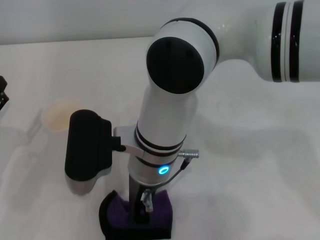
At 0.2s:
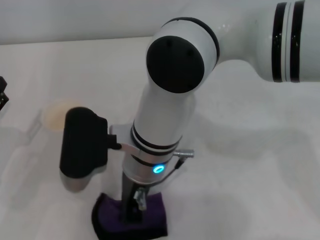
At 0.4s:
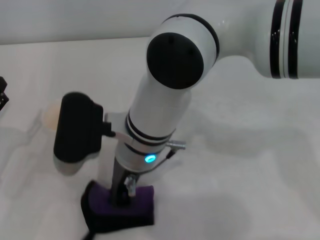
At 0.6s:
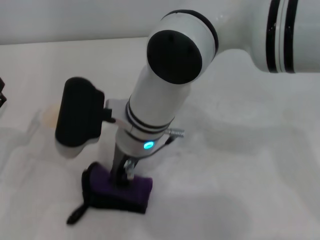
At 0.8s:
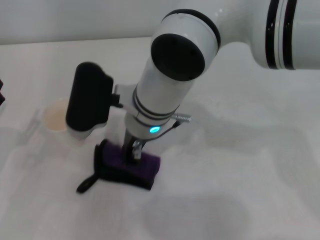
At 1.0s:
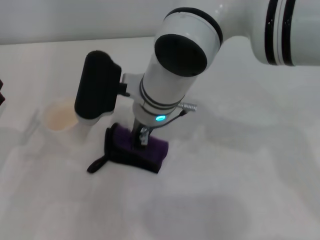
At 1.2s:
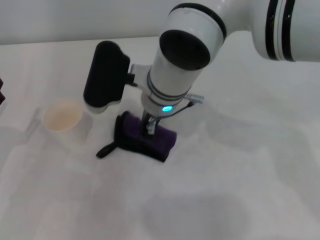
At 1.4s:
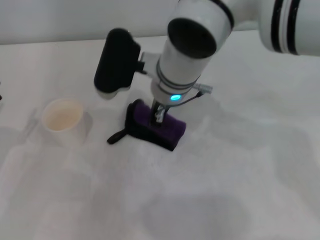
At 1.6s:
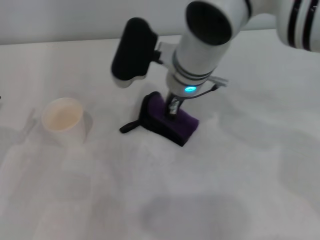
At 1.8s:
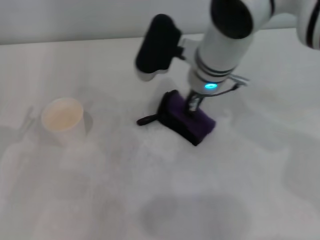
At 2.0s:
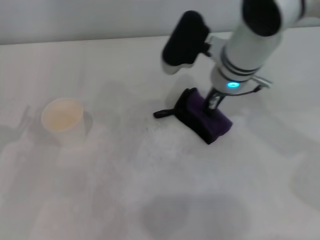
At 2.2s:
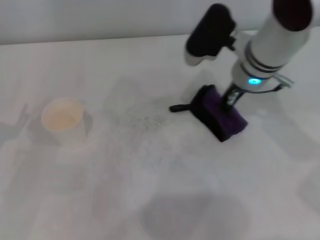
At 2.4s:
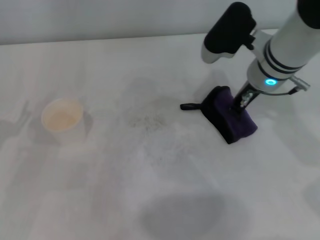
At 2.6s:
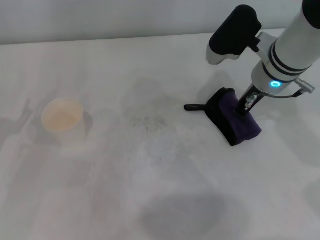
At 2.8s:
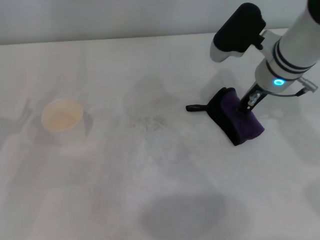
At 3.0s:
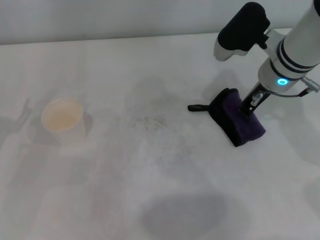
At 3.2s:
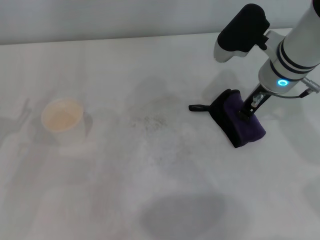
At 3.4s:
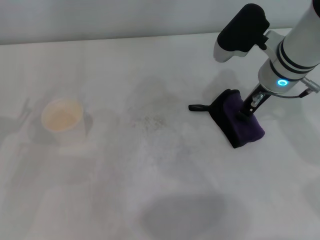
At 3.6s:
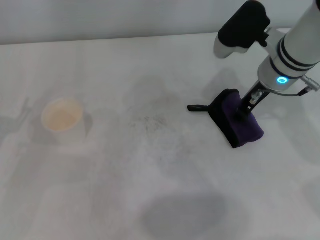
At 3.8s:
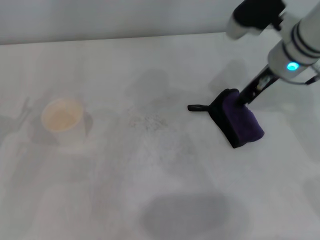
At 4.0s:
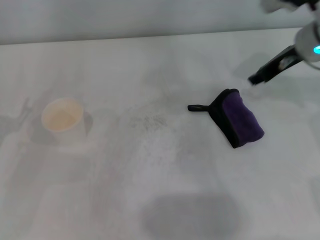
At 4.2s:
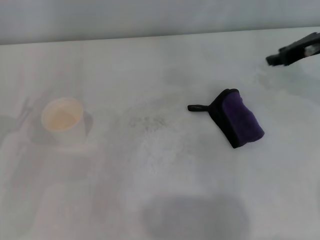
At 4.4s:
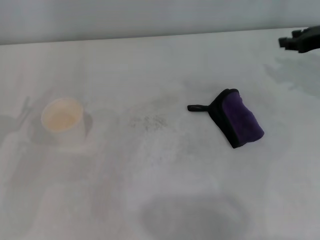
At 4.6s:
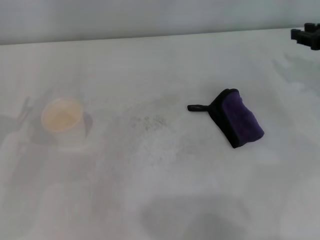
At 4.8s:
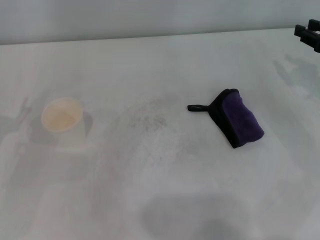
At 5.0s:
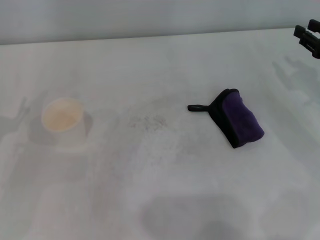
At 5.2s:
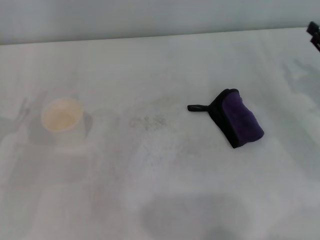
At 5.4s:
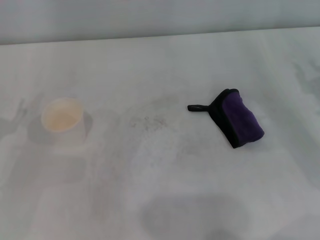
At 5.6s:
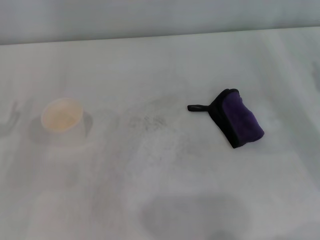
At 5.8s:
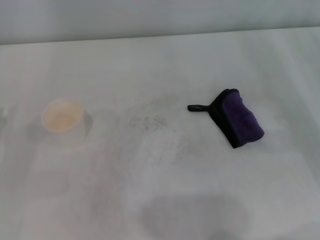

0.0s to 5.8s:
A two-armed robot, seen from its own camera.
Step, 0.0s to 2.8s: Wipe the stains off the table with the right gripper.
Step, 3.0s to 3.6s: Place the rag on the table with the right gripper.
0.0s to 1.4s: The right gripper shifts roughly 10 cm forward.
1.4s to 2.8s: The right gripper moves to the right, approximately 15 cm.
2.8s to 4.4s: The right gripper moves to the right, approximately 15 cm.
4.4s to 5.8s: The right gripper travels backward and downward by approximately 15 cm.

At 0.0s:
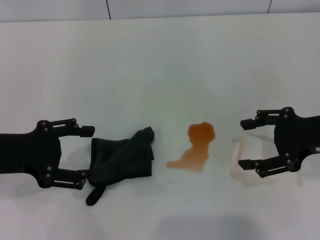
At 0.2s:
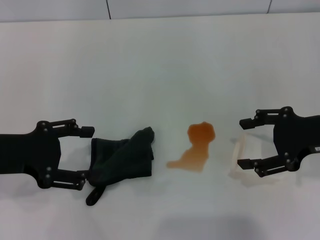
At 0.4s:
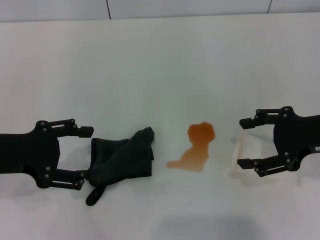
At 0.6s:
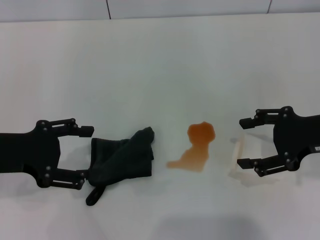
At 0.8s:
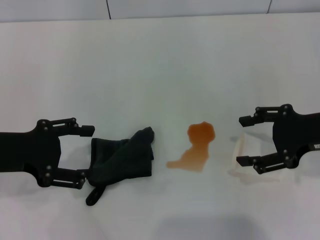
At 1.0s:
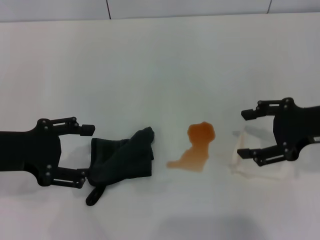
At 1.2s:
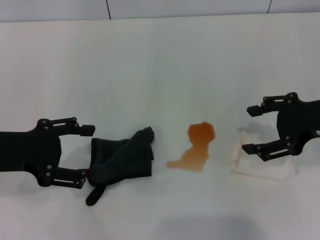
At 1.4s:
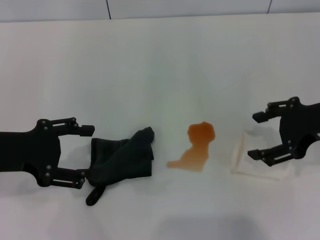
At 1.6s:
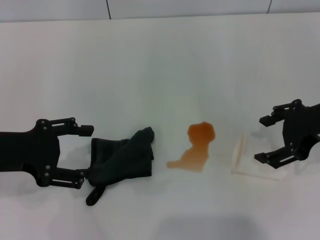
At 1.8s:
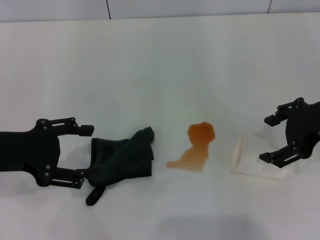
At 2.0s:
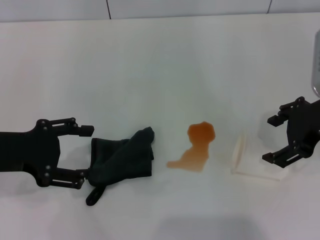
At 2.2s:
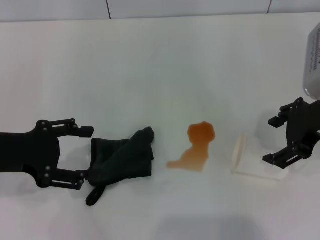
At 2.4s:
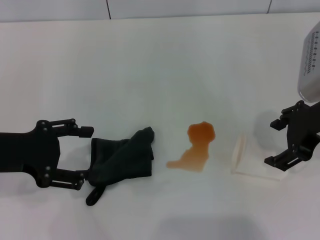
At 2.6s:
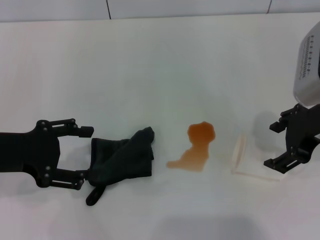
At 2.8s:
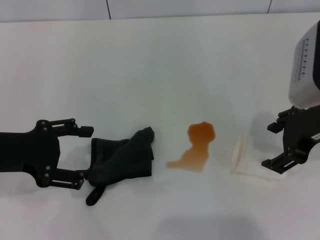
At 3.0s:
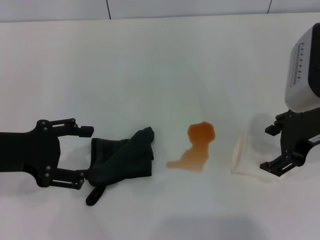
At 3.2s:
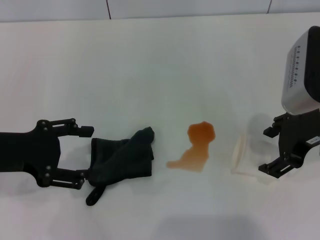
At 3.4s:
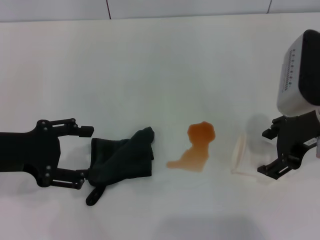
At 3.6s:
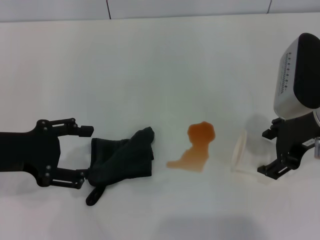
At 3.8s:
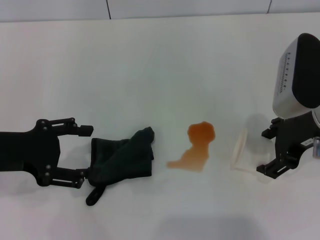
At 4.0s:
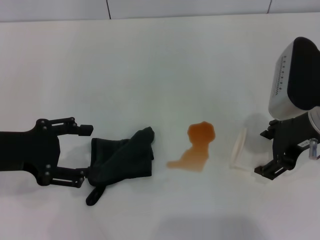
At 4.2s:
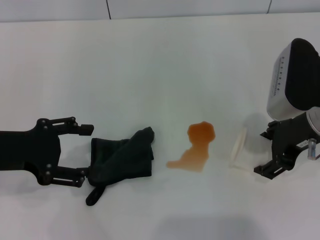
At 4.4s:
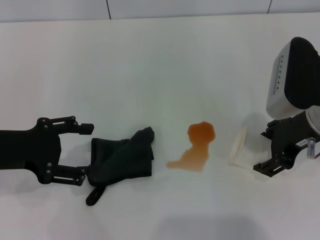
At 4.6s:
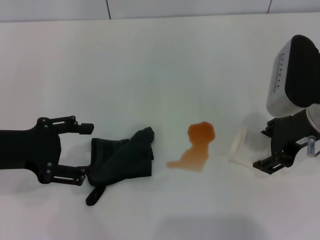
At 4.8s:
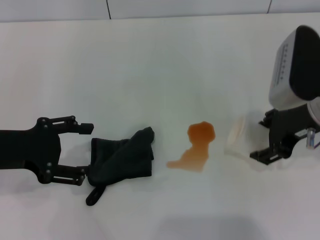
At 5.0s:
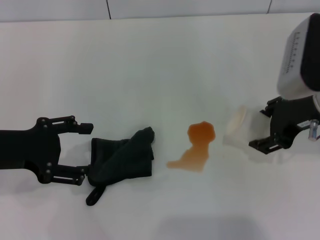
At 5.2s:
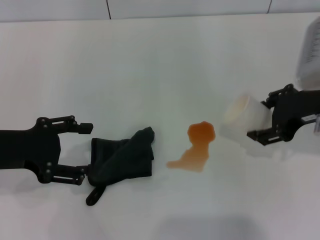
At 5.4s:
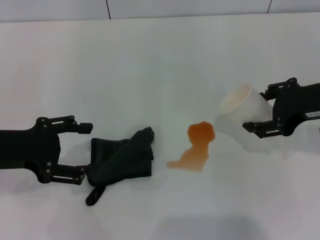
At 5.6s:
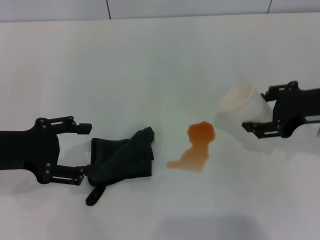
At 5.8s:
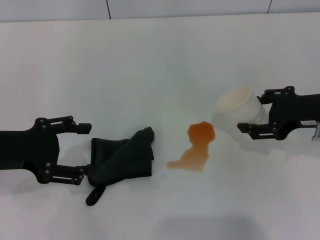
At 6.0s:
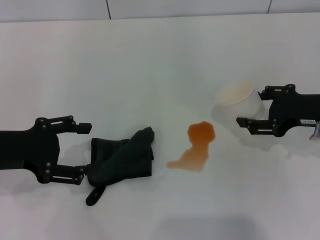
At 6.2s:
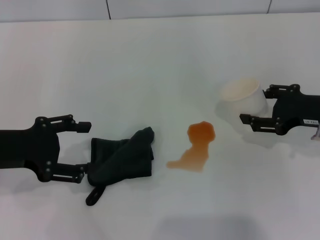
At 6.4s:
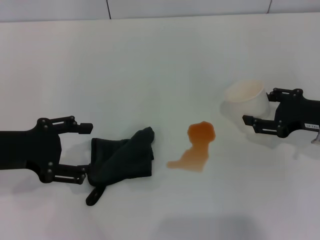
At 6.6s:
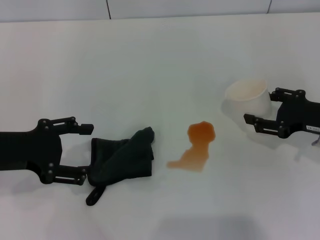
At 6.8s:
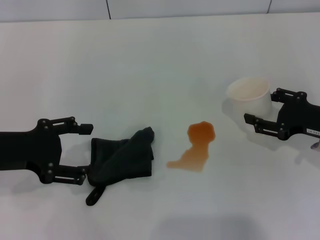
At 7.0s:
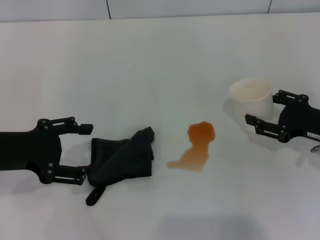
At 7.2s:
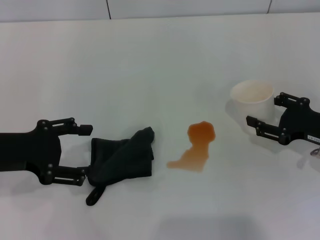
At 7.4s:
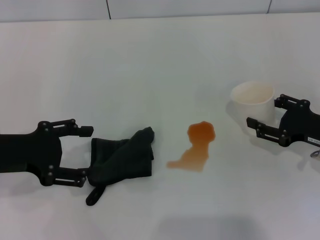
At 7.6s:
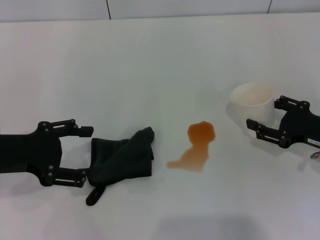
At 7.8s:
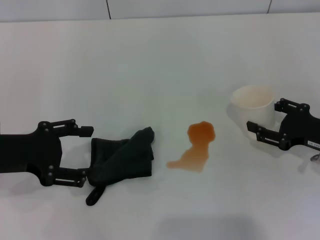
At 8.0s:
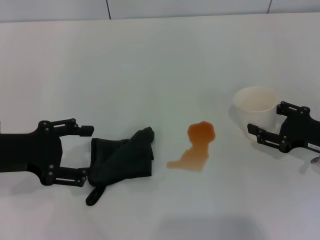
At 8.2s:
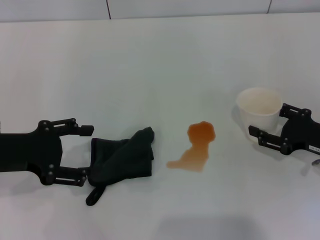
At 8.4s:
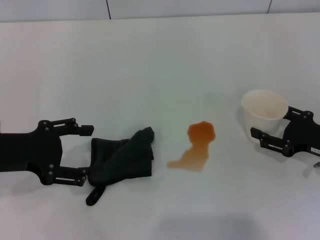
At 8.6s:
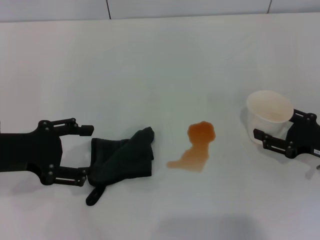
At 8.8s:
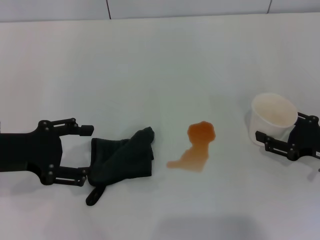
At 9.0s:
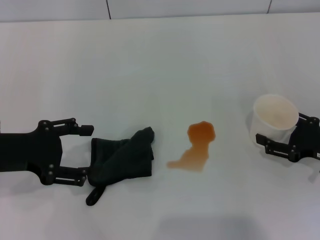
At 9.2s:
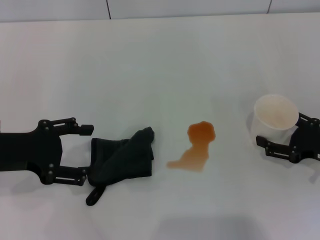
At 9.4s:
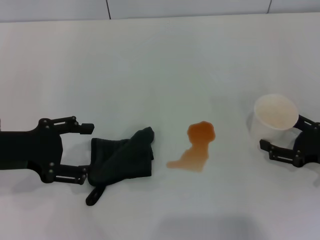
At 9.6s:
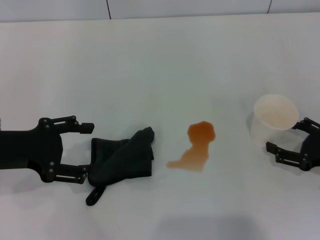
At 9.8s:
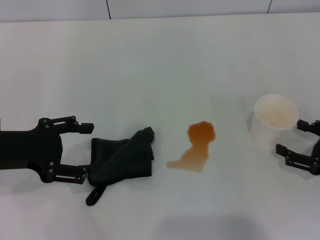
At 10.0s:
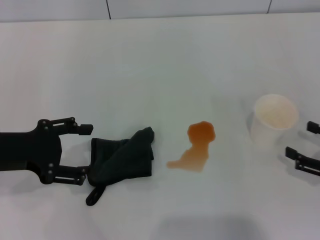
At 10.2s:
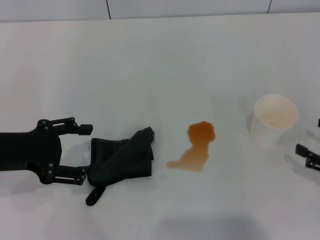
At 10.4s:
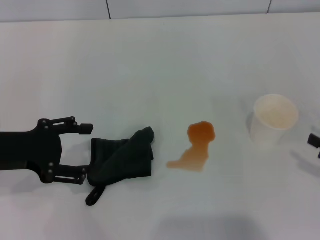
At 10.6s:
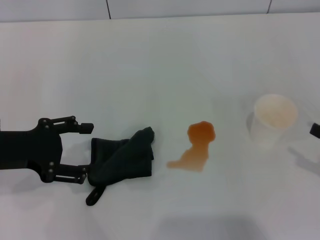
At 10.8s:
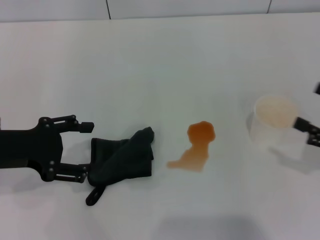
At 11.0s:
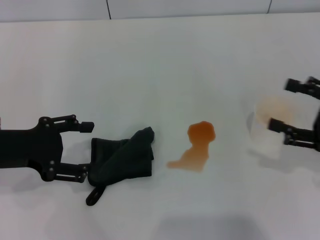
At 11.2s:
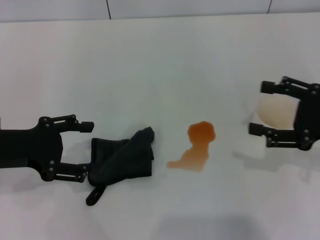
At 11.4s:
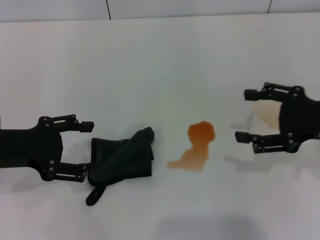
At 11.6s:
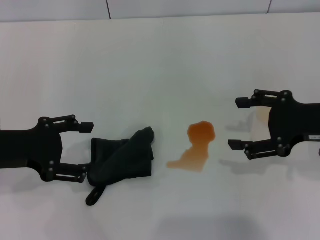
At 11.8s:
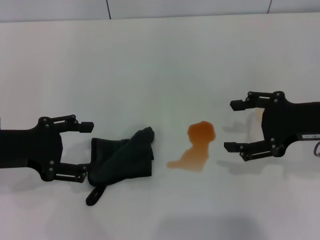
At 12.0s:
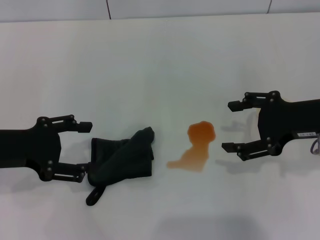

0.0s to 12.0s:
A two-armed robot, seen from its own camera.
Step, 0.0s to 4.4s: Grasp the paper cup with the right gripper.
Step, 4.8s to 9.6s: Stand the paper cup upright with the right gripper.
1.6s to 4.4s: There are only small adjustments of the grippers.
4.4s to 6.0s: The right gripper heads to the right, covering roughly 5 cm.
6.0s to 7.6s: The right gripper shifts roughly 5 cm downward.
7.6s to 9.0s: The grippers move only a little.
9.0s to 10.4s: The right gripper shifts roughly 10 cm backward and to the right, and opens its fingers.
10.4s to 12.0s: The right gripper heads to the left, upward and forward, covering roughly 20 cm.

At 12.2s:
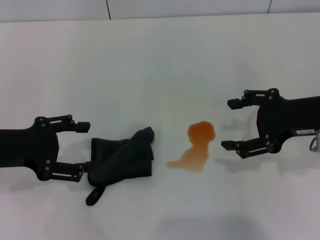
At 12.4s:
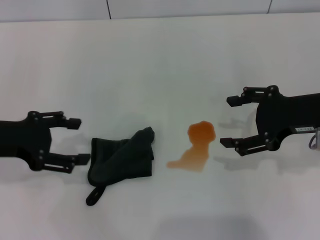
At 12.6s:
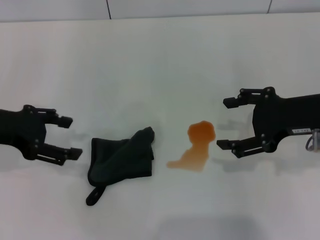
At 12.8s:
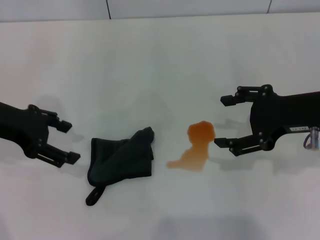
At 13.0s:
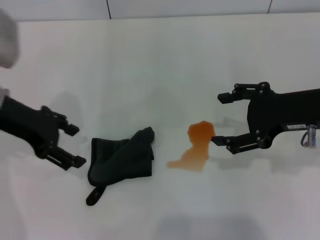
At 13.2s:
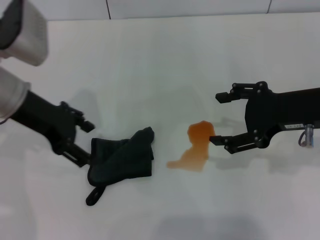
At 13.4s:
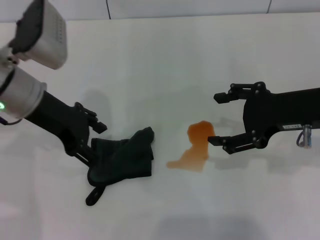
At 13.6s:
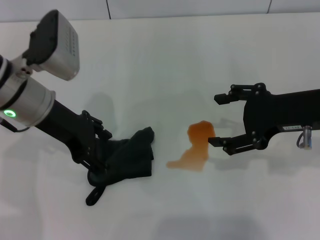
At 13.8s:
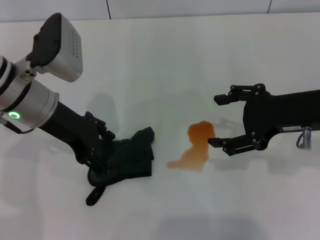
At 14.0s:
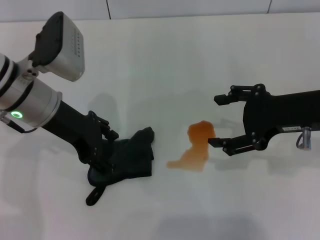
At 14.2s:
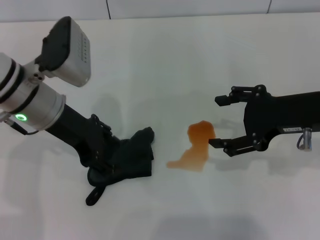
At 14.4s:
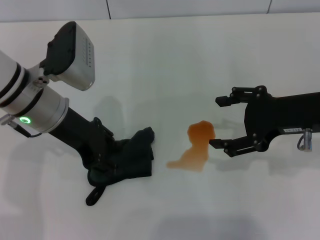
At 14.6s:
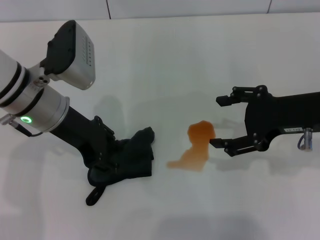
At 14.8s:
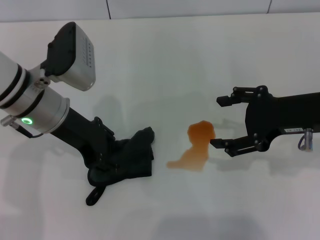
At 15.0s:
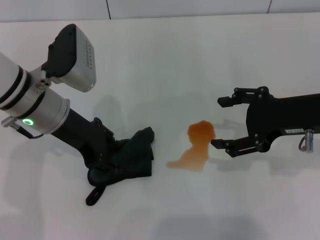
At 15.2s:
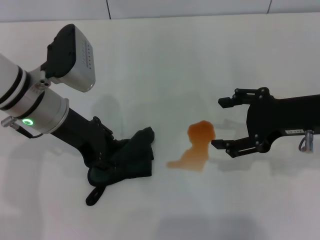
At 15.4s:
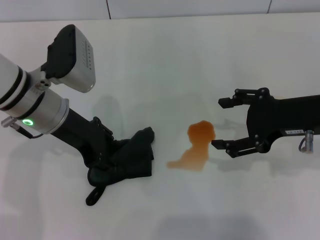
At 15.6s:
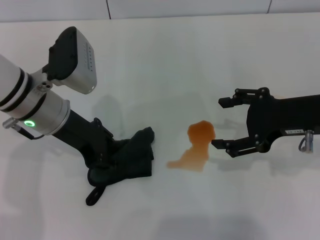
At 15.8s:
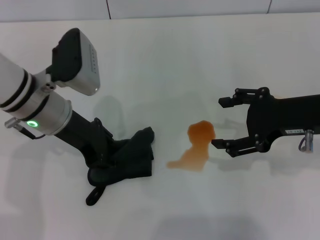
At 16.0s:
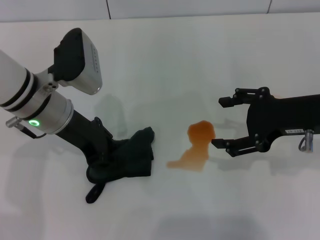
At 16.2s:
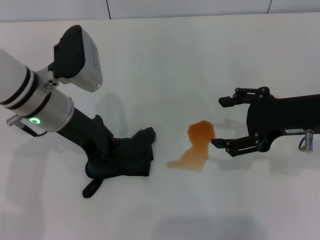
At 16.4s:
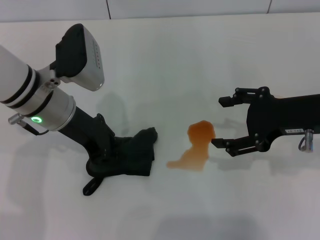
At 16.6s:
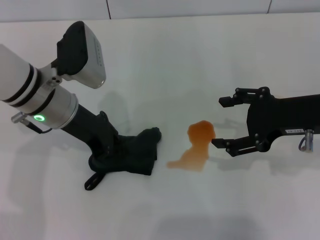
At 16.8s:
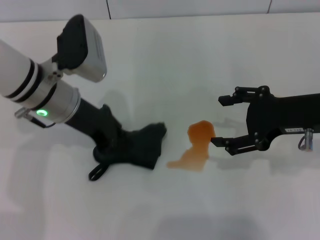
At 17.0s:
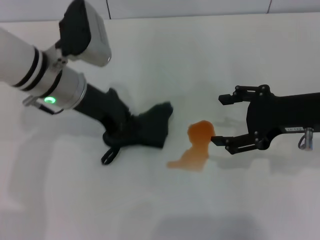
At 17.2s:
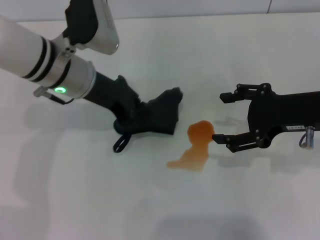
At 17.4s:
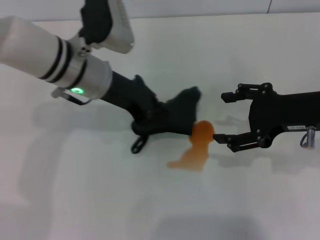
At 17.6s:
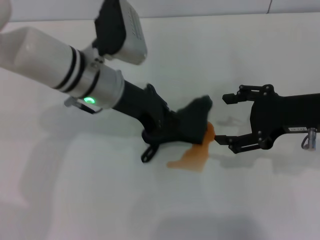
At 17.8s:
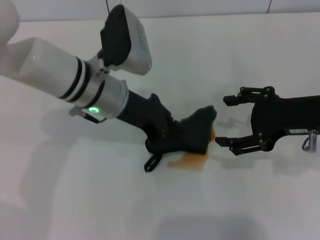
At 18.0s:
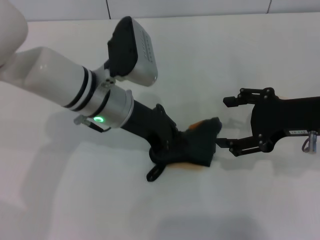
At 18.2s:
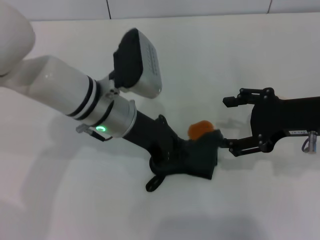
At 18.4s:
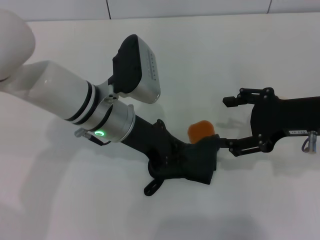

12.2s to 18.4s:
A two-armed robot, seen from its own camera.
Step, 12.2s to 16.4s: Grasp the rag with the left gripper.
12.2s to 13.8s: The left gripper moves to the right and forward, roughly 15 cm.
13.8s to 15.4s: The left gripper closes up.
15.4s to 16.8s: The left gripper closes its fingers.
16.8s to 18.4s: The left gripper goes roughly 5 cm to the right.
